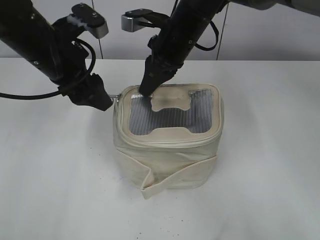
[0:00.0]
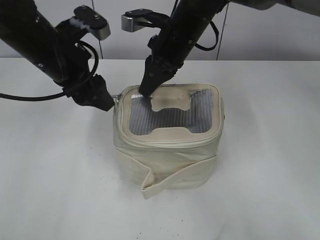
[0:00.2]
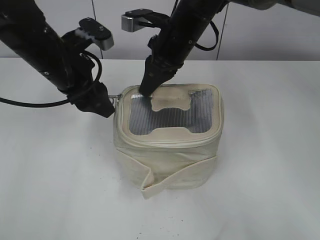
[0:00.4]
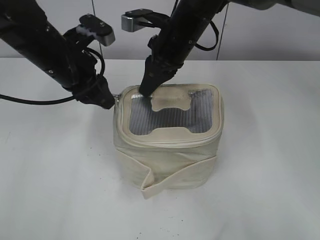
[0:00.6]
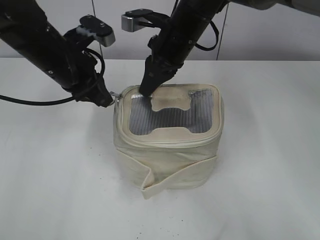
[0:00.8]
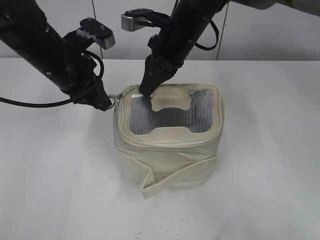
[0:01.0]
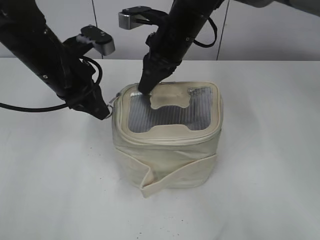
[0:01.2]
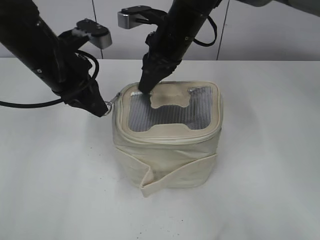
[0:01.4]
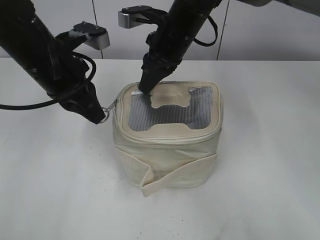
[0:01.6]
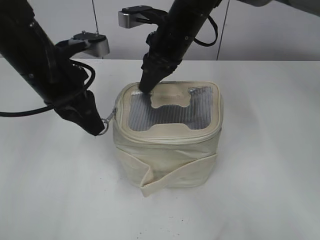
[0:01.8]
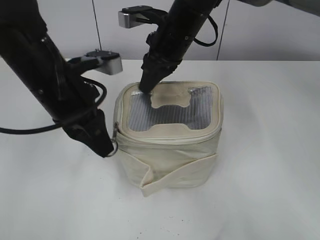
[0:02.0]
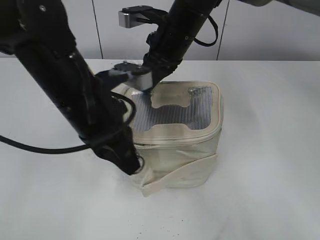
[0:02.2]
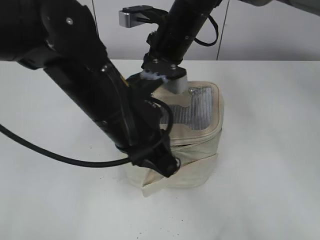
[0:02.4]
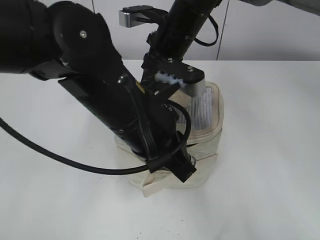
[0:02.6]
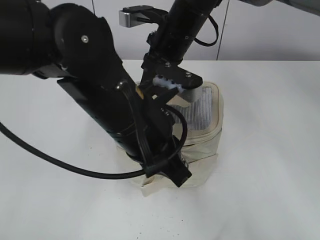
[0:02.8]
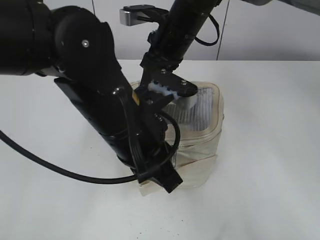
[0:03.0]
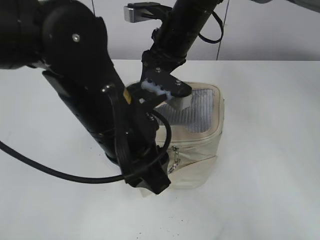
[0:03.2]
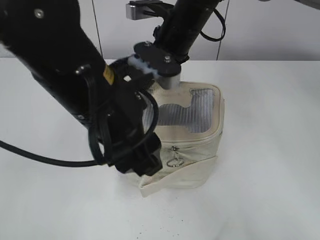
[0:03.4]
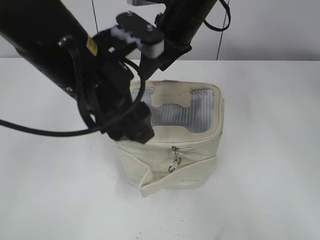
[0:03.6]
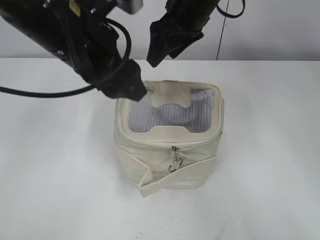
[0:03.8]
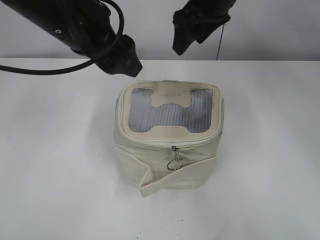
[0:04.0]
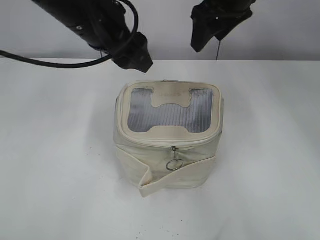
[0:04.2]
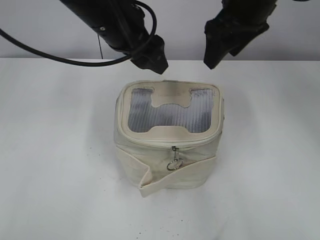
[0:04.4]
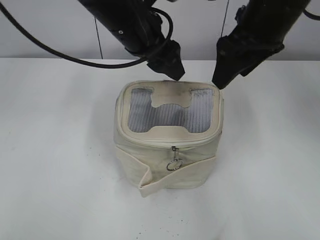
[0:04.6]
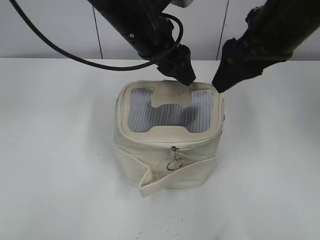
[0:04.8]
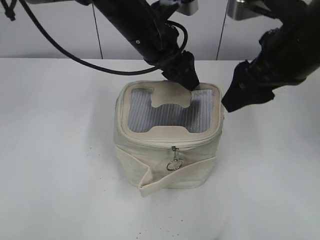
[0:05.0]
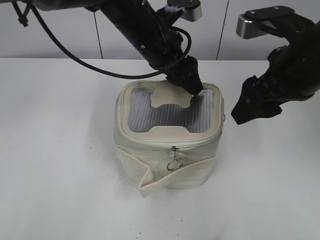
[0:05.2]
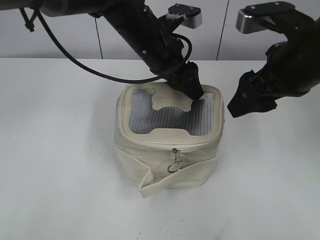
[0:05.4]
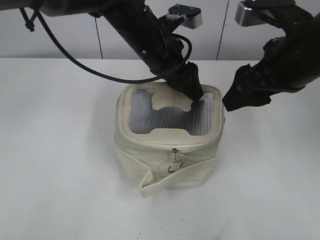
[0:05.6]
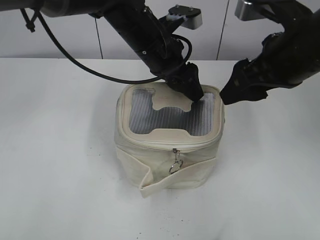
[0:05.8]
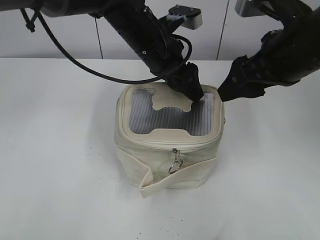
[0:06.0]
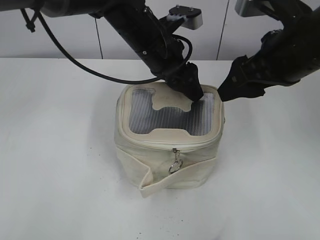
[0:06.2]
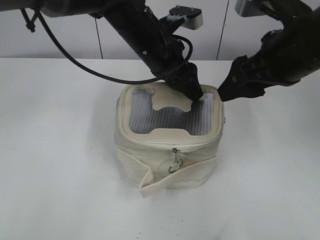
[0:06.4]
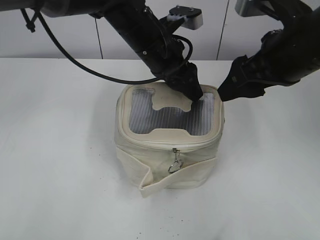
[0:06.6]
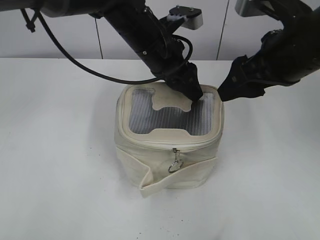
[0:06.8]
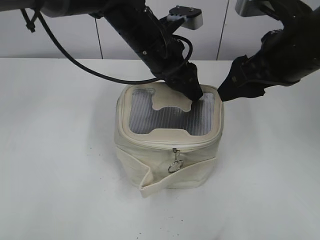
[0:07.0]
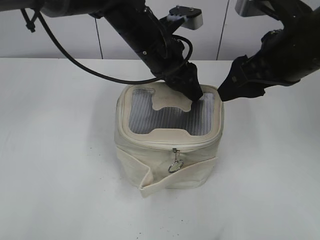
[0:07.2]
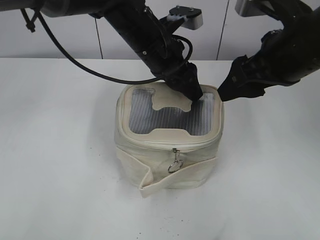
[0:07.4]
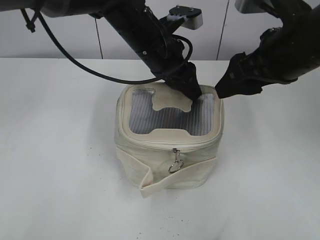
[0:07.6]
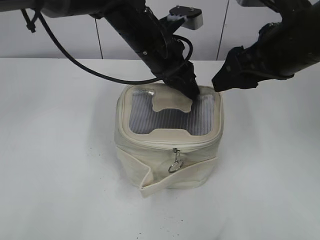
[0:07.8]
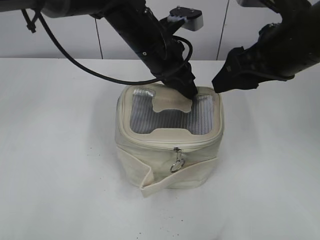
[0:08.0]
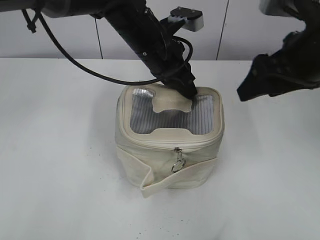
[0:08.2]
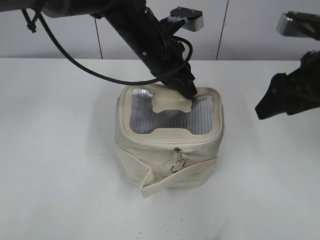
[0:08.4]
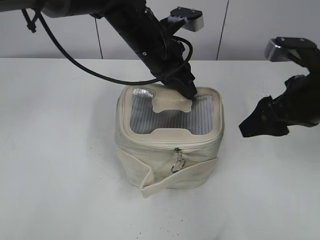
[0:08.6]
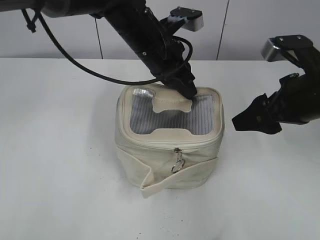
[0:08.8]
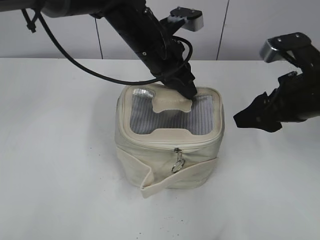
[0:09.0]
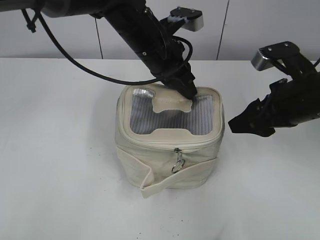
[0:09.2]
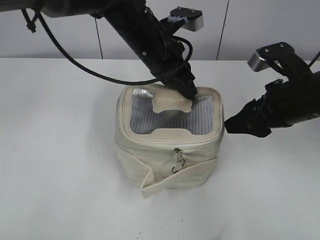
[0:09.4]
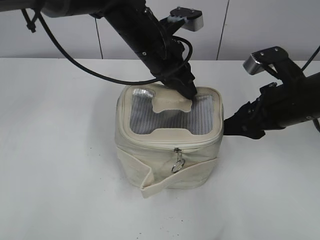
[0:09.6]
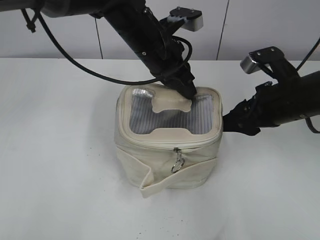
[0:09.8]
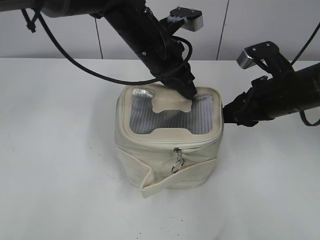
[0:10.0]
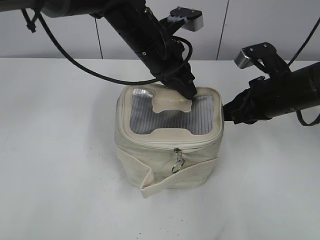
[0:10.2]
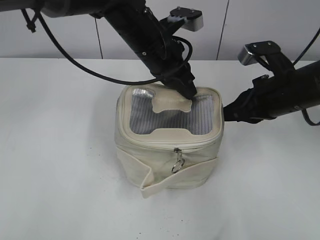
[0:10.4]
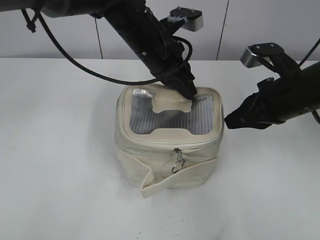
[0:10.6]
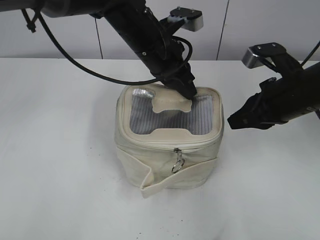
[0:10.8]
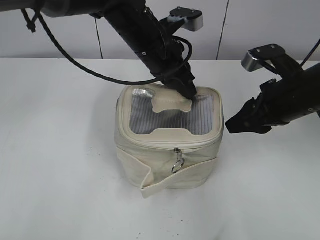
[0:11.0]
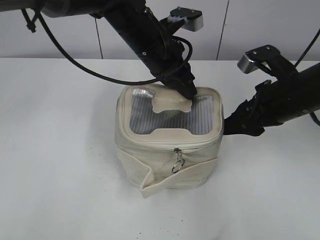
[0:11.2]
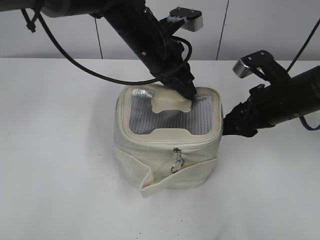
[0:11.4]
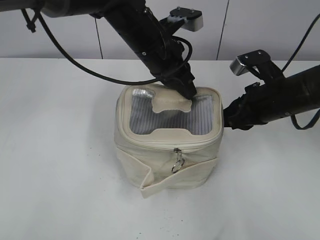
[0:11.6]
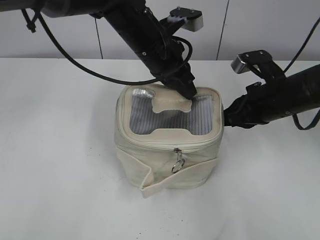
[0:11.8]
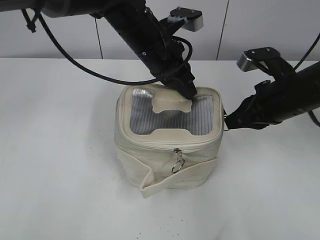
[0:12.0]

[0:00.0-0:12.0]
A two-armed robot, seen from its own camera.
Step, 0:00.0 to 0:03.0: Zip up the bag with your left hand.
0:00.0 to 0:01.6: The left gripper closes up.
0:01.6 to 0:03.0: The left gripper goes some 15 cm to the right and backward.
0:03.0 to 0:04.4: The right gripper heads to the right and upward, covering about 10 cm, and opens up, while the left gripper moves forward and upward, some 15 cm, and opens.
0:04.4 to 0:06.0: The left gripper moves downward and to the right, approximately 10 cm, while the right gripper heads backward, covering approximately 10 cm.
0:06.0 to 0:07.6: Neither gripper changes place.
0:07.6 to 0:09.0: The left gripper closes its fingers; the right gripper travels downward and to the right by some 10 cm.
0:09.0 to 0:10.4: The right gripper ends up approximately 5 cm from where it was, and closes its fingers.
0:10.4 to 0:12.0: The right gripper opens and closes again.

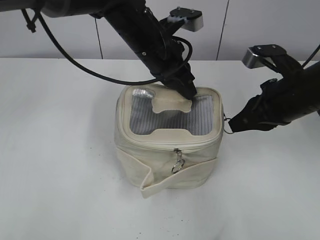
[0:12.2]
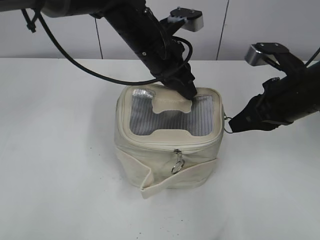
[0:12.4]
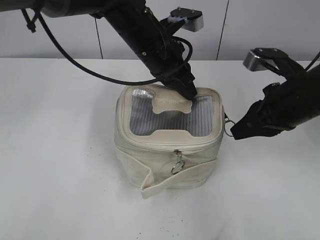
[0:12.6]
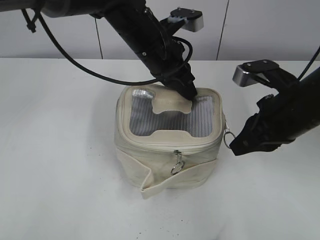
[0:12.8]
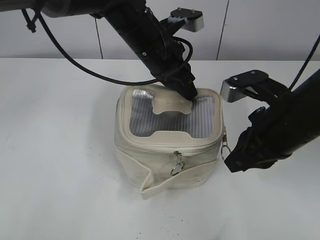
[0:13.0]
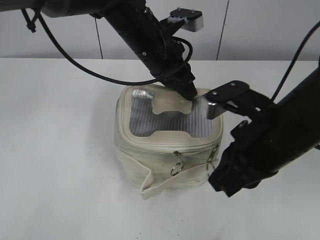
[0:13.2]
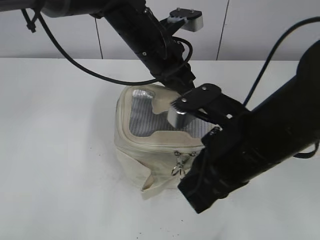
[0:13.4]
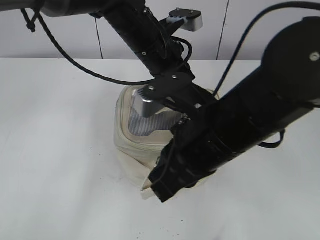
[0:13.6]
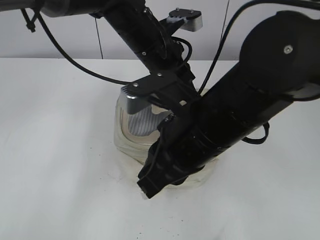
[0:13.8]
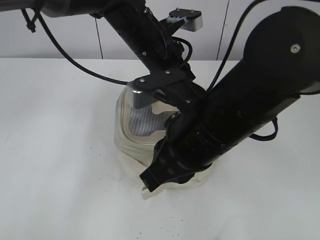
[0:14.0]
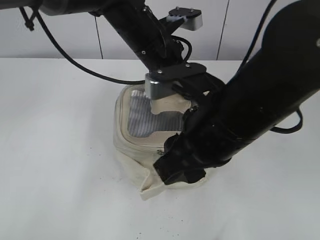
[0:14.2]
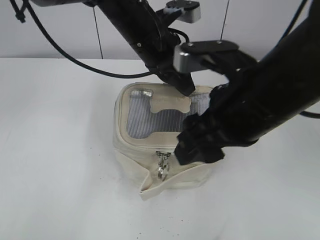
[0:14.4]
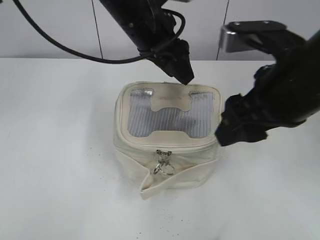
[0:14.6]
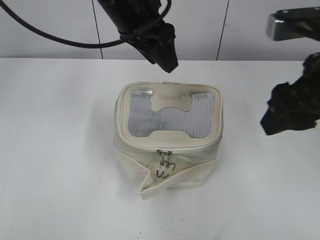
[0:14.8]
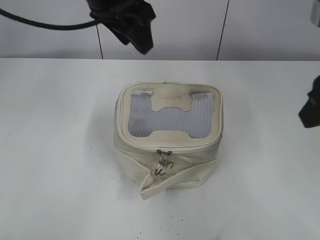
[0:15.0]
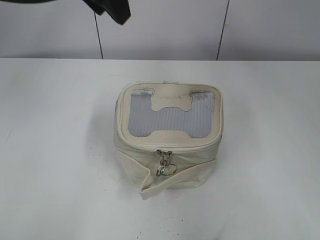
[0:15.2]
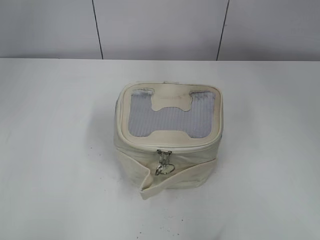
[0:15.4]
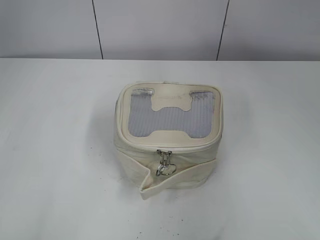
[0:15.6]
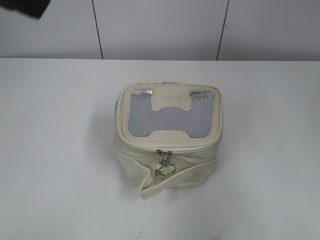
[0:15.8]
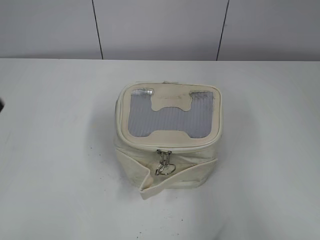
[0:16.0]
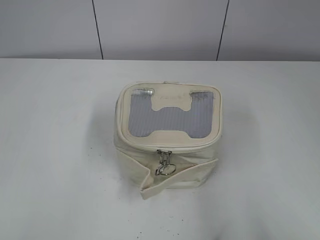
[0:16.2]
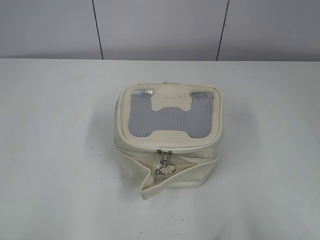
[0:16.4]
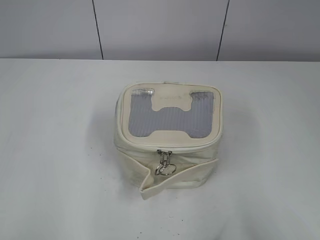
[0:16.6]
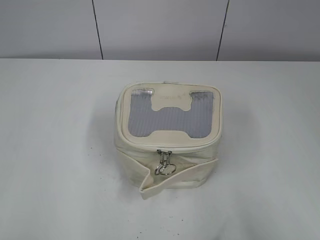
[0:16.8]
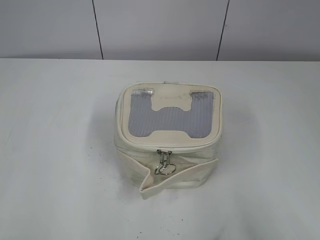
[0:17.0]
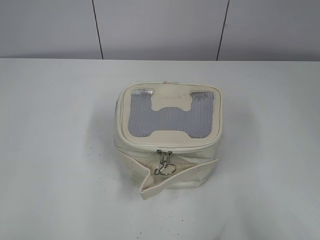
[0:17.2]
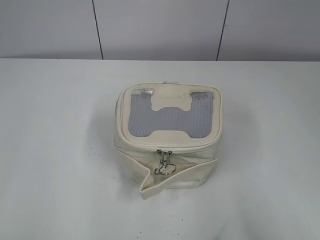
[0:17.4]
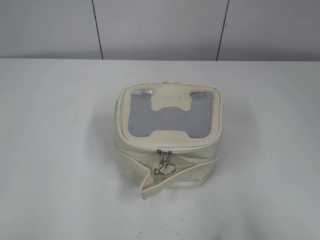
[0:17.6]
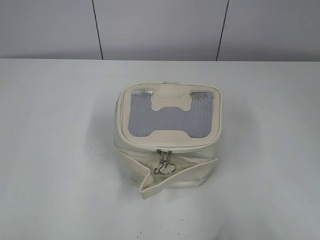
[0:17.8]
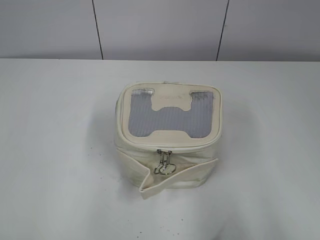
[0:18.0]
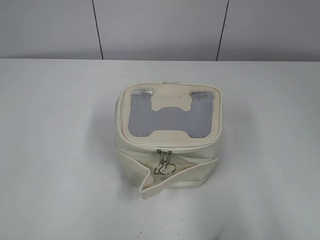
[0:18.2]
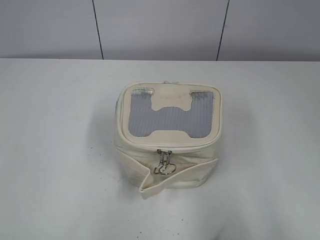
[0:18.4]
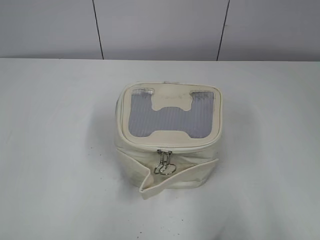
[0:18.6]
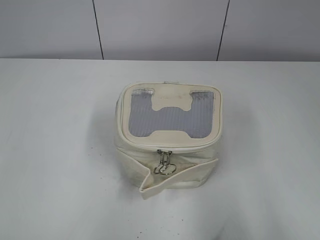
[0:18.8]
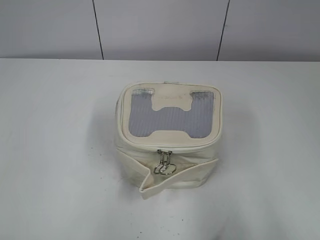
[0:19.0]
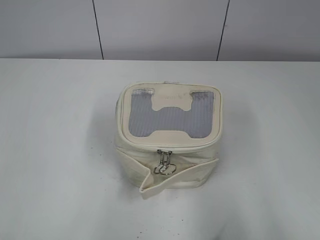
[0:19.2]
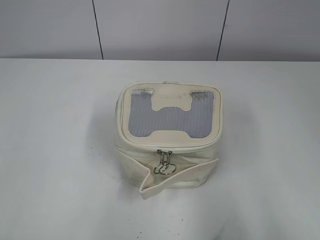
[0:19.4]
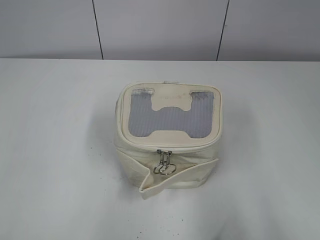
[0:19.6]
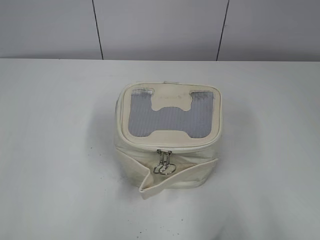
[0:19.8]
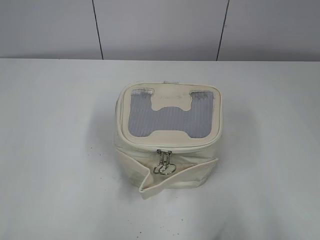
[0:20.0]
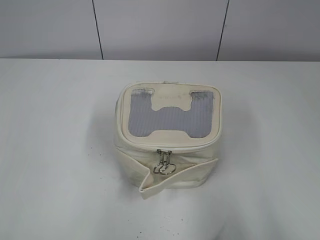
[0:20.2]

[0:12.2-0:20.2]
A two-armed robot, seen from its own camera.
Step, 0:14.2 to 0:14.4: Hold the bag with your left hand.
0:12.2 to 0:13.8: The right gripper goes approximately 20 cm to the left and backward.
0:13.8 to 0:15.4: The right gripper heads to the right and upward, covering some 25 cm, and opens up. Meanwhile the left gripper moves upward and to the left, about 25 cm, and opens up.
0:15.4 to 0:17.0: The right gripper is displaced backward and downward by roughly 15 cm. Meanwhile the left gripper travels backward, to the left and downward by approximately 35 cm.
0:18.6 to 0:20.2: The two grippers keep their place.

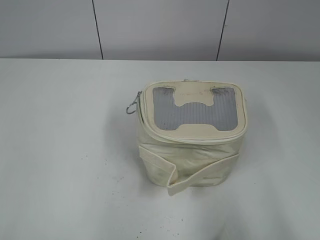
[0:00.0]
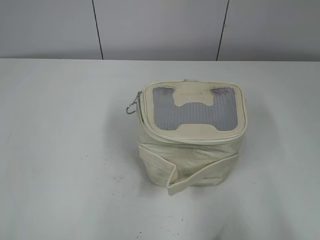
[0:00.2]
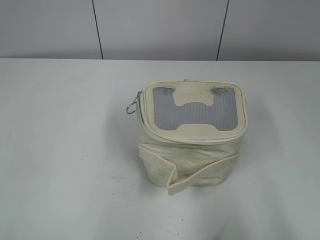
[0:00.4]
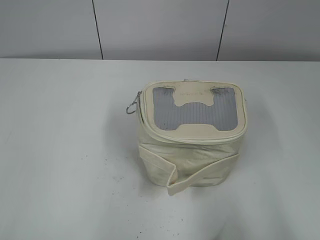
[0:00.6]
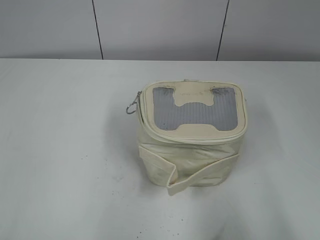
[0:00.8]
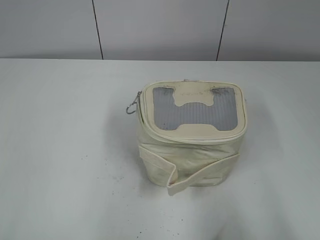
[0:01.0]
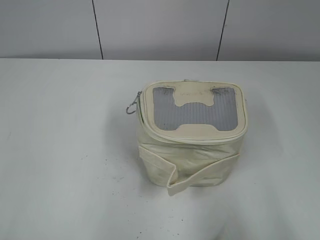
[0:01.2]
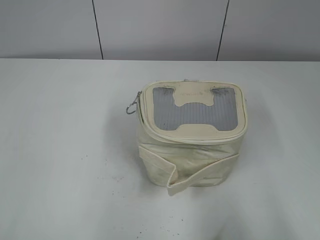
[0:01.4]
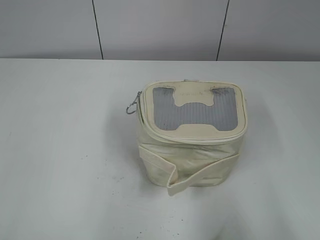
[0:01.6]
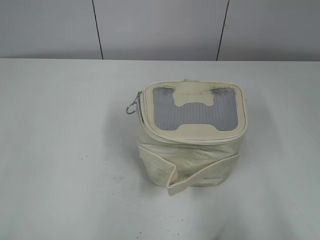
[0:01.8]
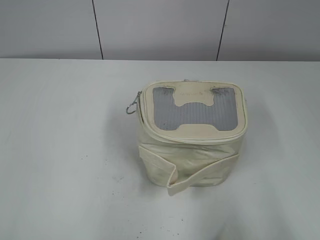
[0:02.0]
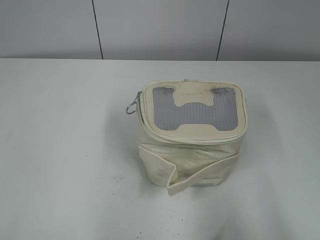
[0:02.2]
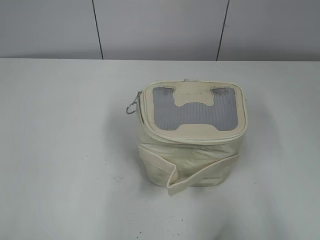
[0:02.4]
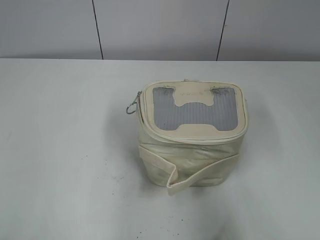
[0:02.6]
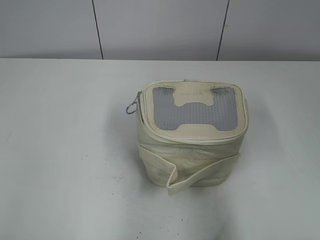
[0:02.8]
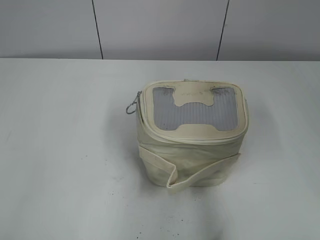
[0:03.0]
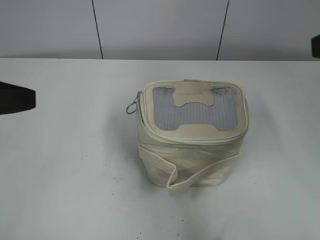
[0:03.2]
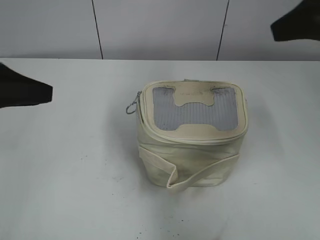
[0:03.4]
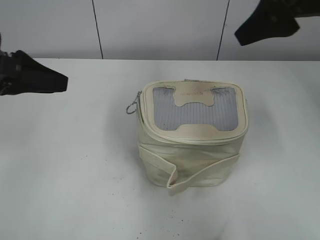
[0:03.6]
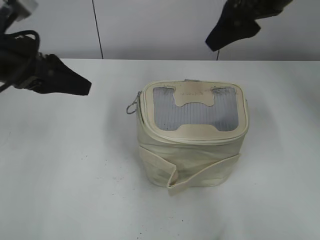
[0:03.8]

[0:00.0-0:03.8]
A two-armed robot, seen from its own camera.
0:01.2 to 0:02.6: The grippers make only small movements.
0:02.6 to 0:03.8: The right gripper moves forward and to the left, roughly 35 cm; the left gripper goes some 25 cm forward.
